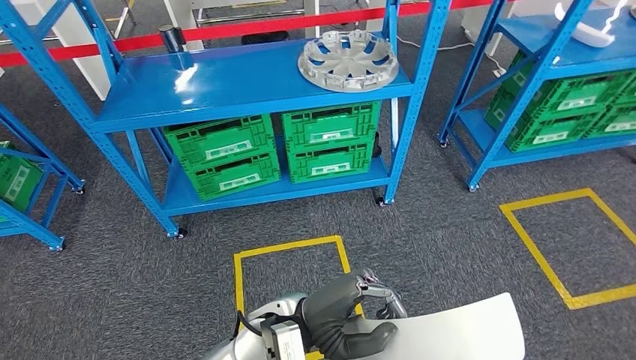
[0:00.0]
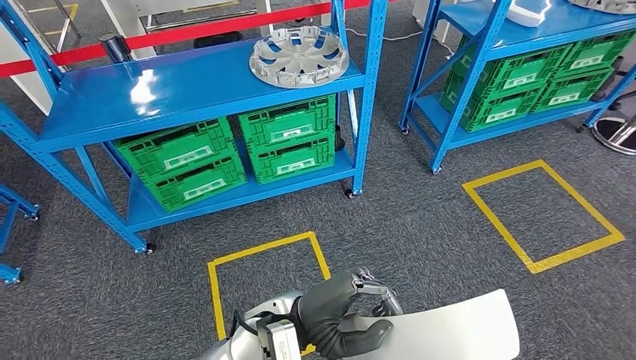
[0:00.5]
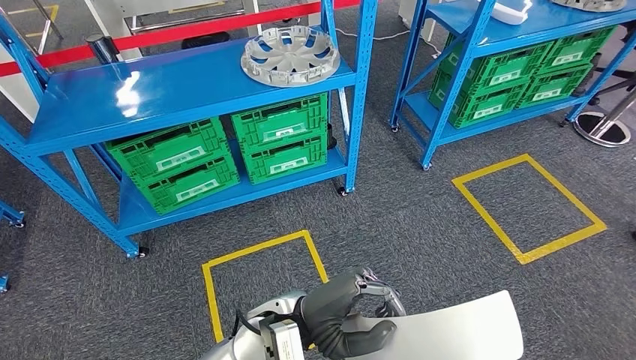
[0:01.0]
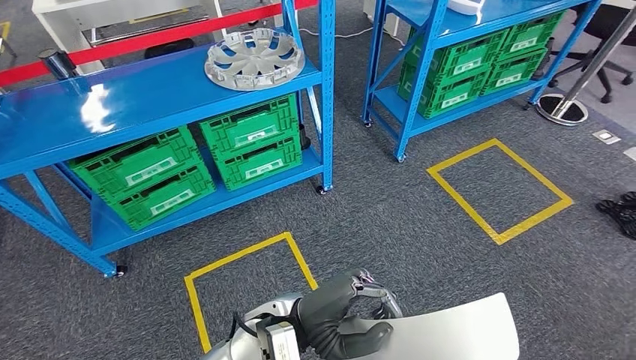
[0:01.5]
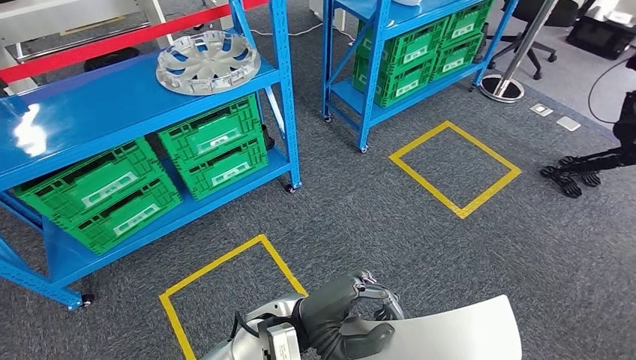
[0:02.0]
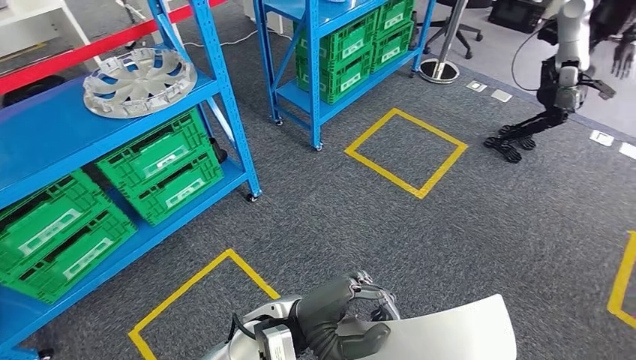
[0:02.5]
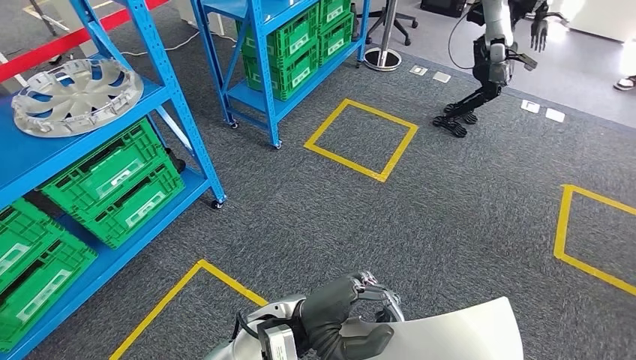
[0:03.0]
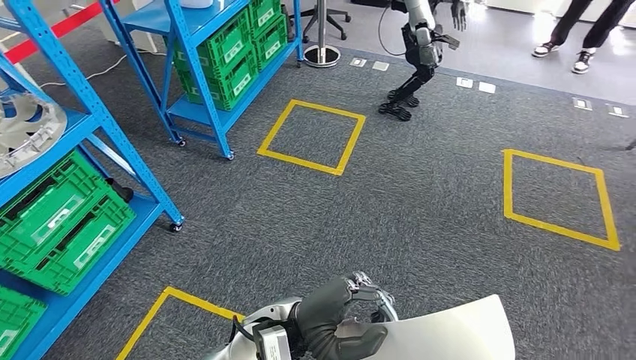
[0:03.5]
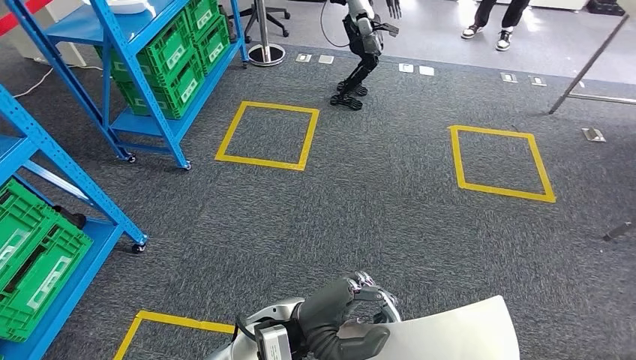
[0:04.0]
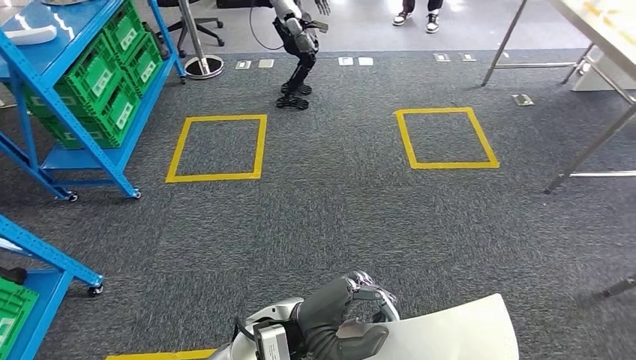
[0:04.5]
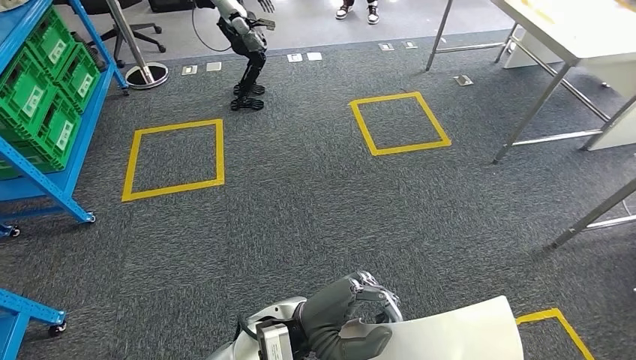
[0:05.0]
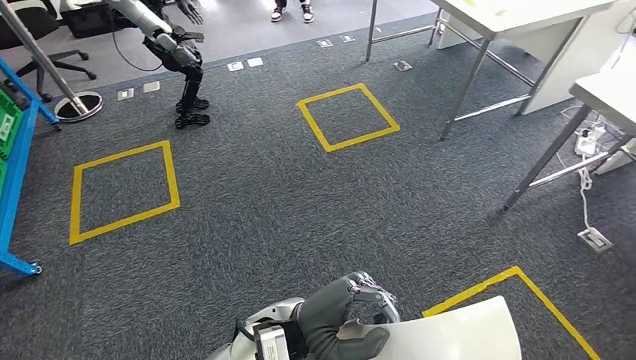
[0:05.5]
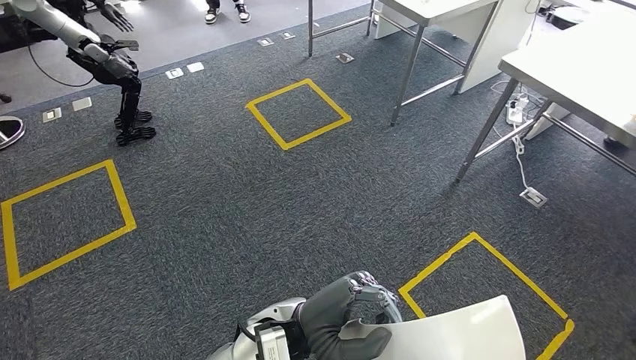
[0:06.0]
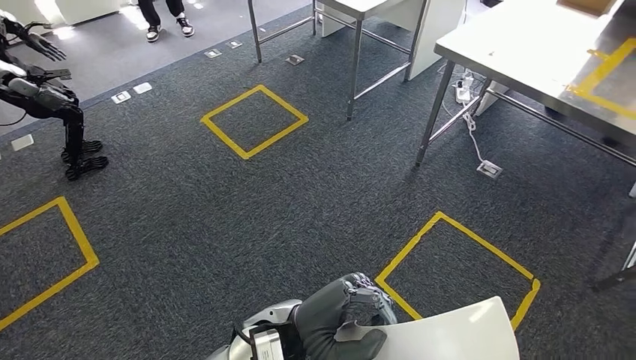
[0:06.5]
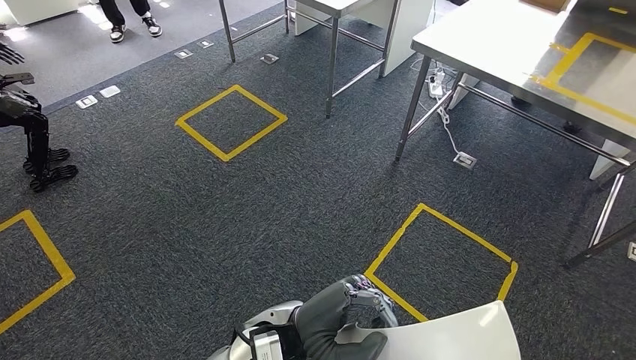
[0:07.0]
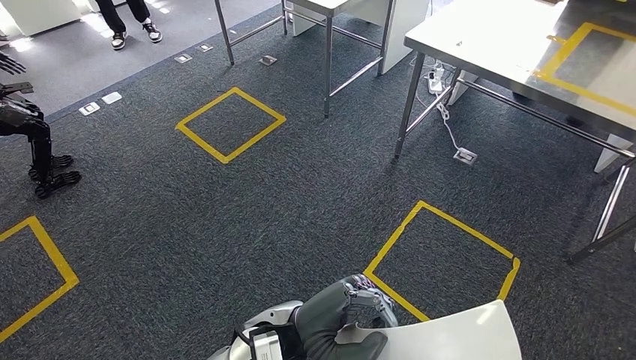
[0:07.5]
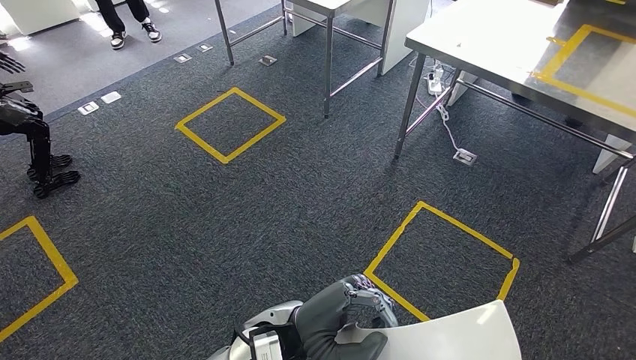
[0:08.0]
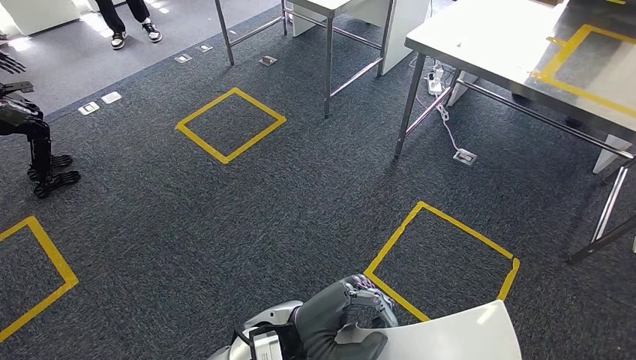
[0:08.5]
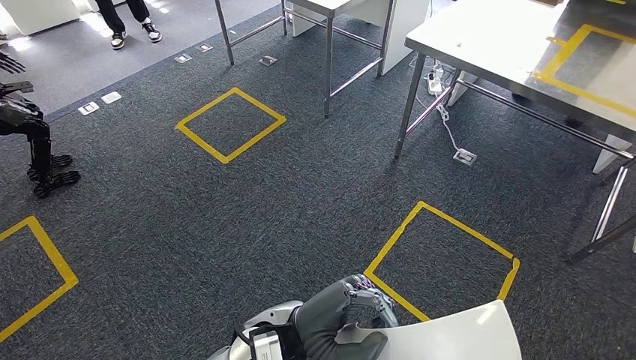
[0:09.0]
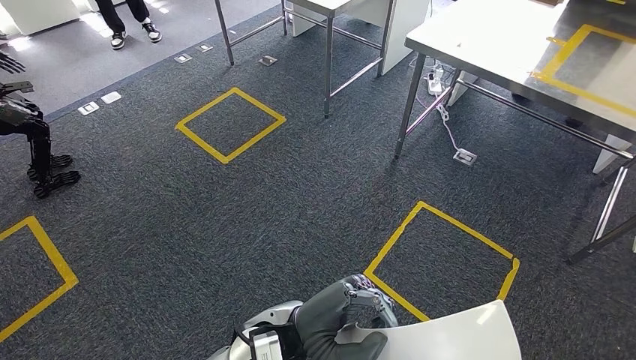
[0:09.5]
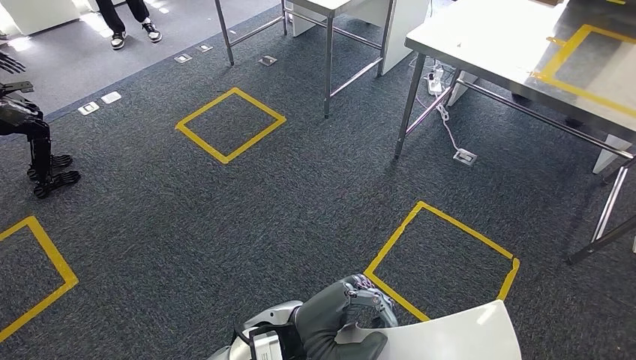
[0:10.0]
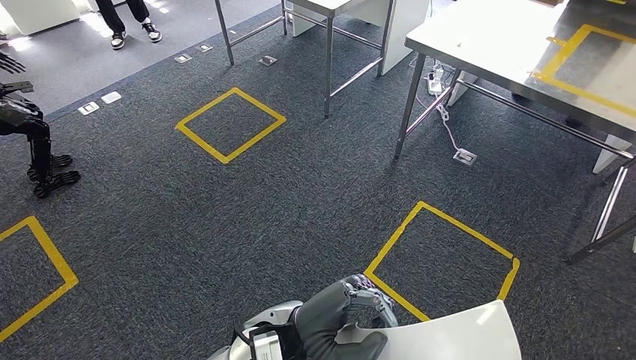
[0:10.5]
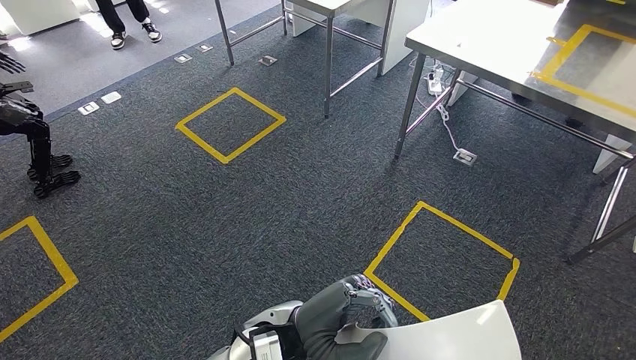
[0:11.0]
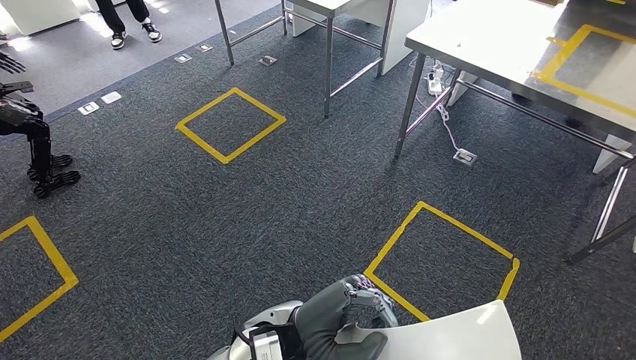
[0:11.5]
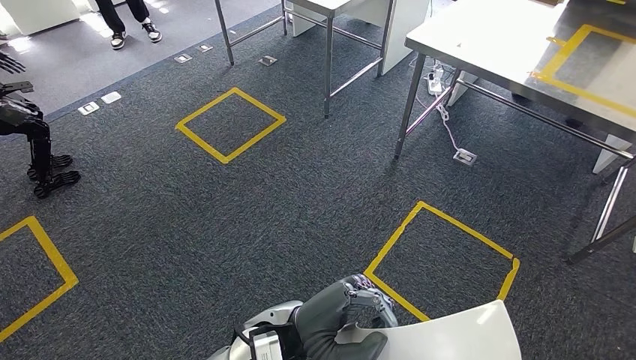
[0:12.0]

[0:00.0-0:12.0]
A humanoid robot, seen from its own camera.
0:08.0 to 0:12.0: Both hands stay put.

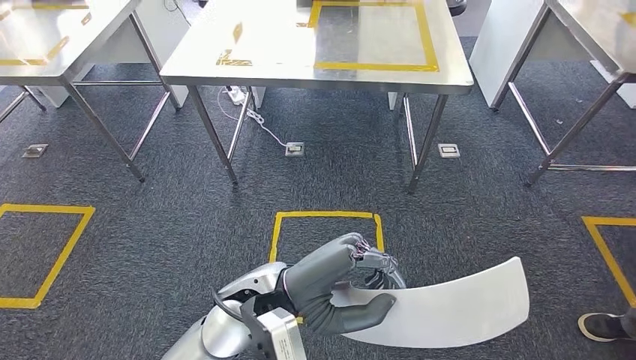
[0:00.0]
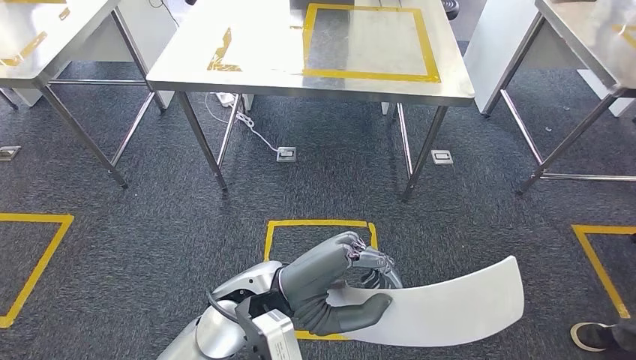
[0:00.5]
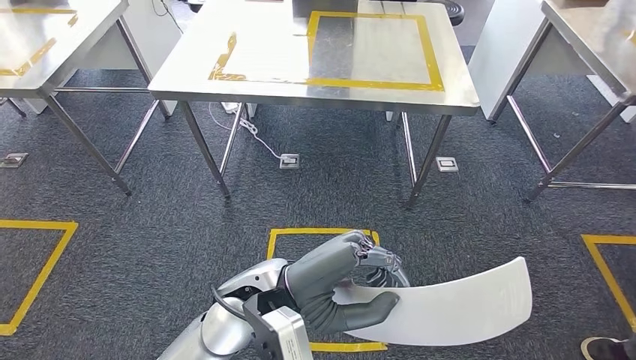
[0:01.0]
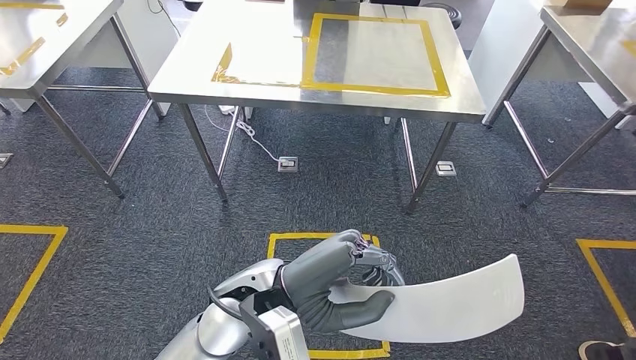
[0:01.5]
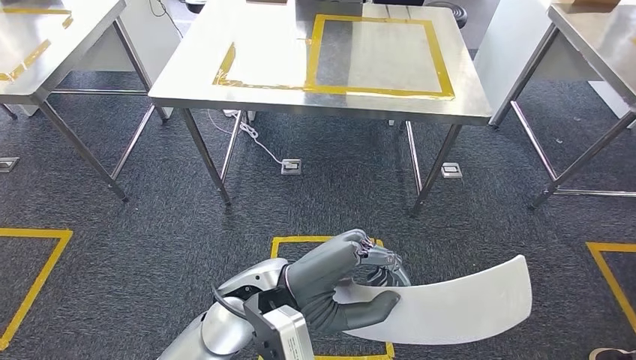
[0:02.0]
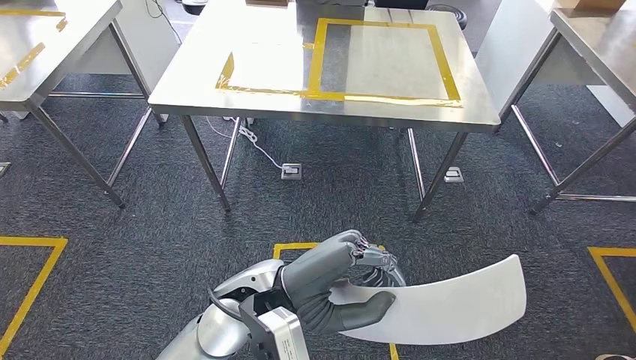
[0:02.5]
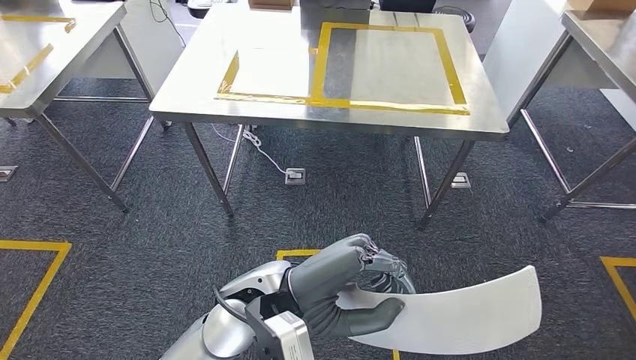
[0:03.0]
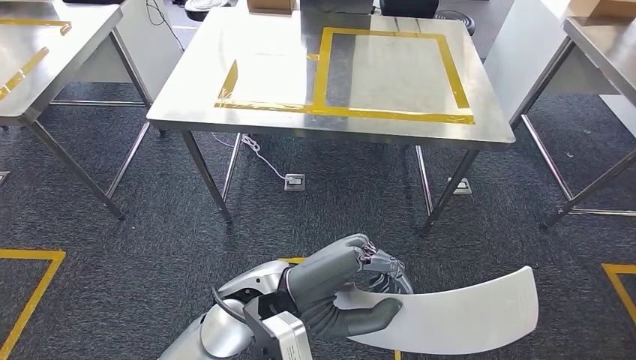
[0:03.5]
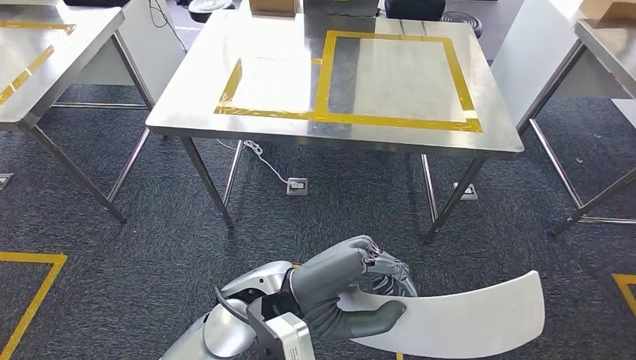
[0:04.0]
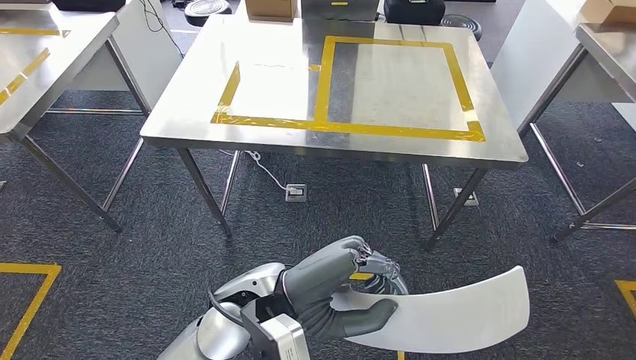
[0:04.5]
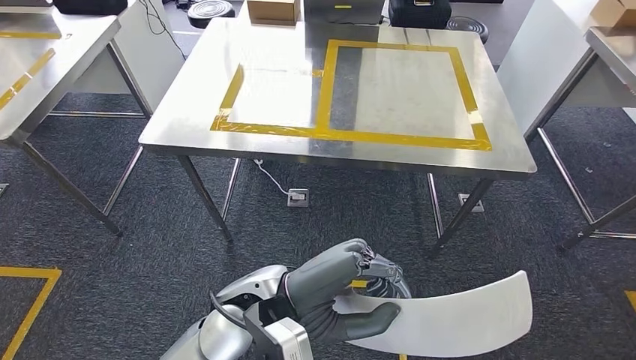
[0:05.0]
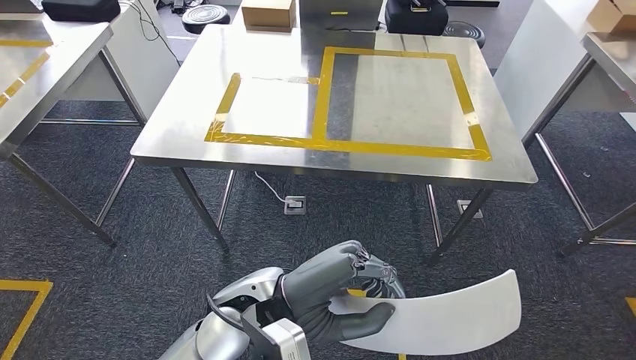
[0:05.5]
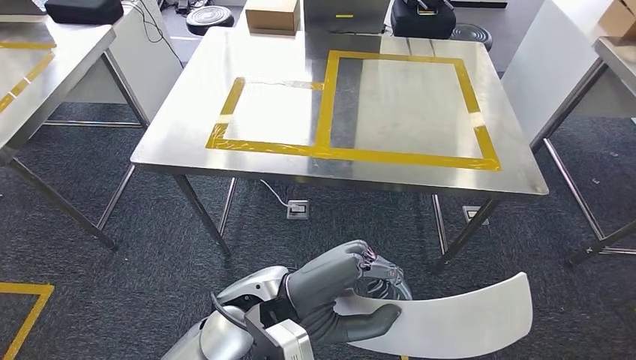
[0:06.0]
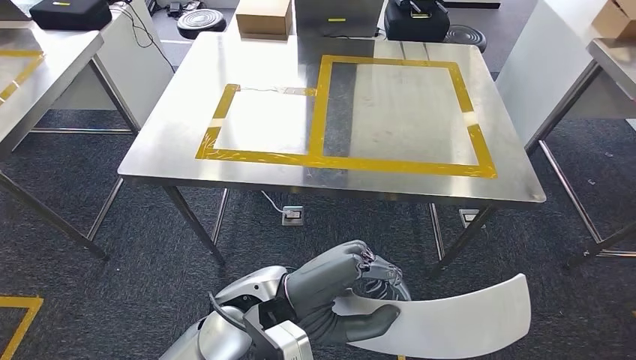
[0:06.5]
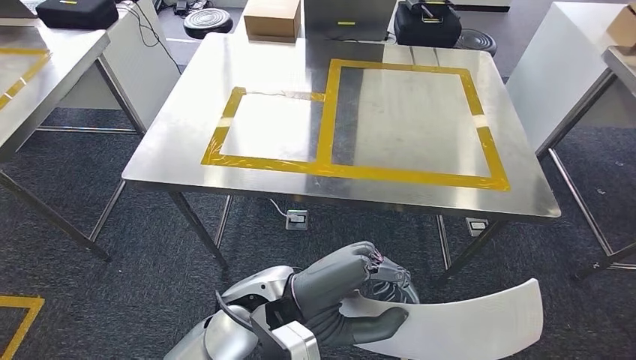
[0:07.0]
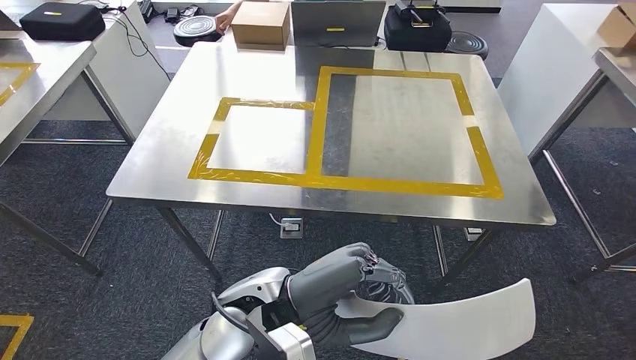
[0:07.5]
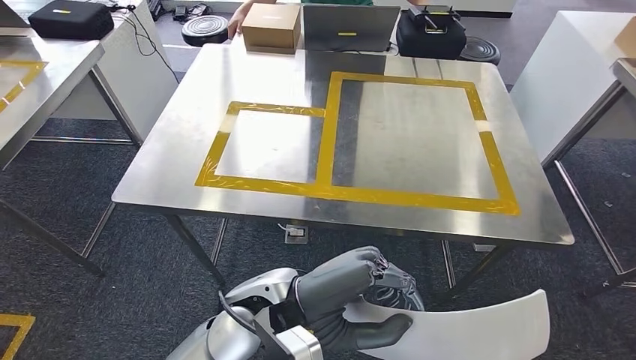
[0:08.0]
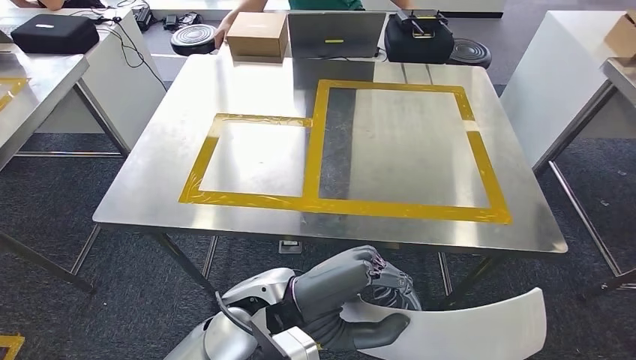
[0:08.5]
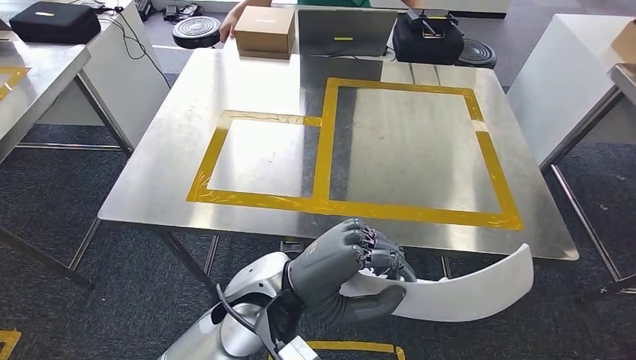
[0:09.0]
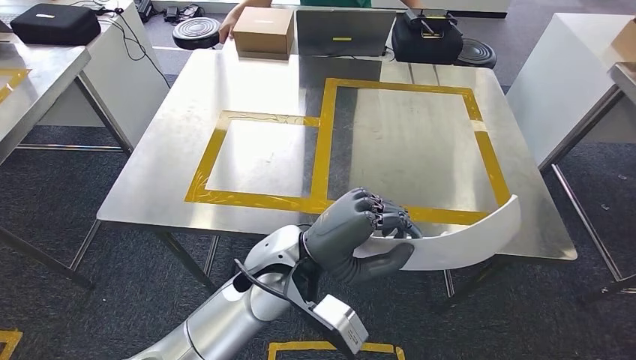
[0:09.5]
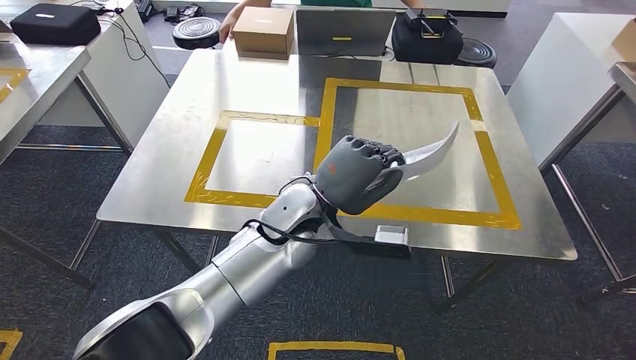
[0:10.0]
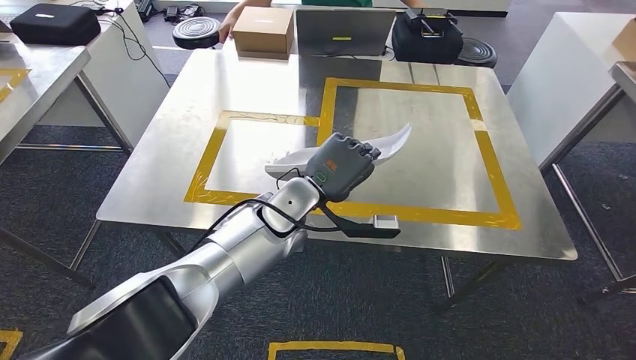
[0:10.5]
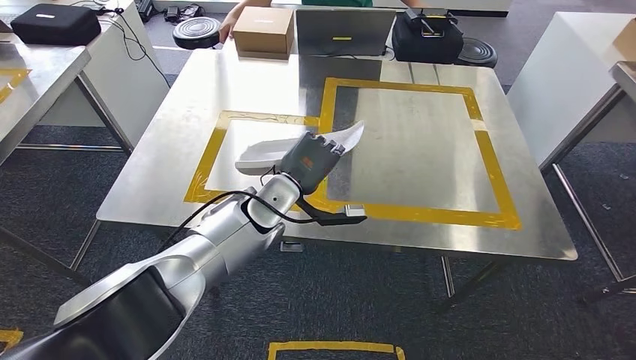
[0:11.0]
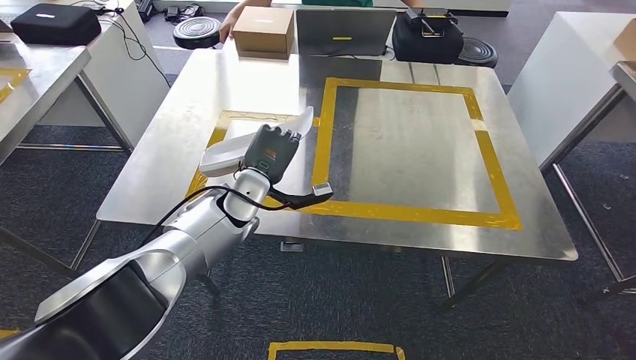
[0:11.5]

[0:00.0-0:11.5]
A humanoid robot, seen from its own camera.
Step, 0:00.0 to 0:10.0: Move the small parts to the workbench.
0:09.5 to 0:11.5: The left hand travels forward and to the left by approximately 15 cm.
